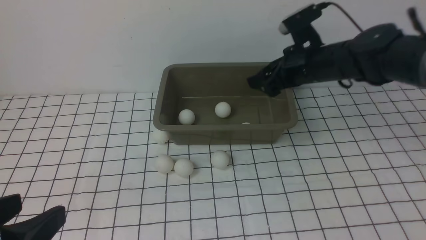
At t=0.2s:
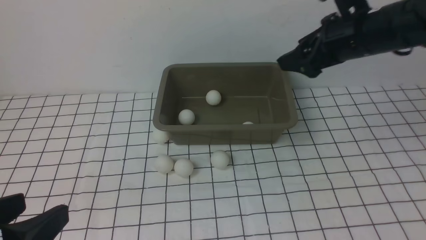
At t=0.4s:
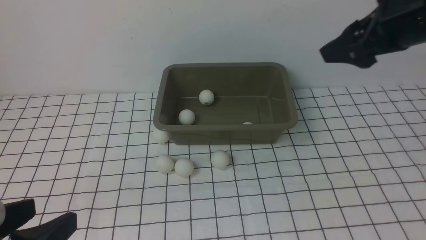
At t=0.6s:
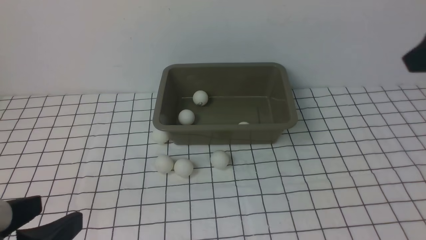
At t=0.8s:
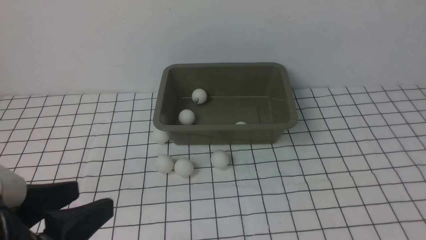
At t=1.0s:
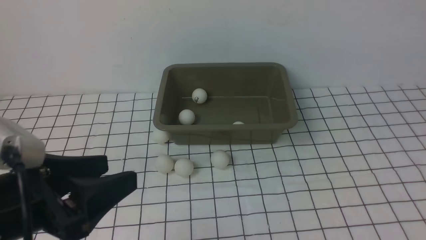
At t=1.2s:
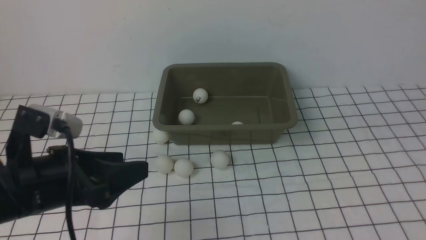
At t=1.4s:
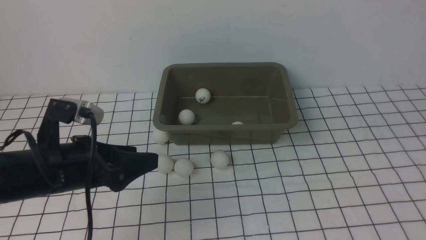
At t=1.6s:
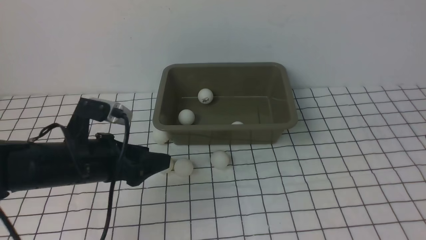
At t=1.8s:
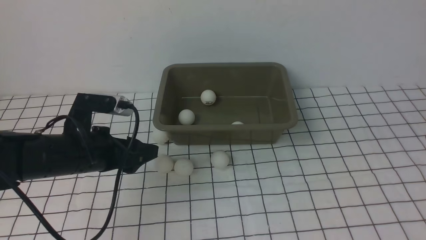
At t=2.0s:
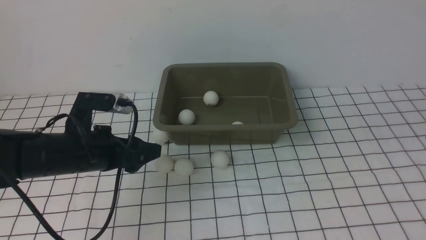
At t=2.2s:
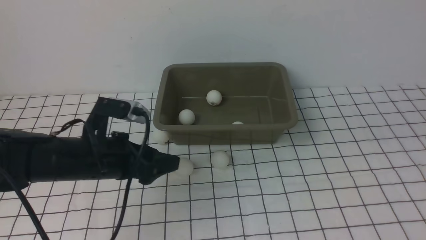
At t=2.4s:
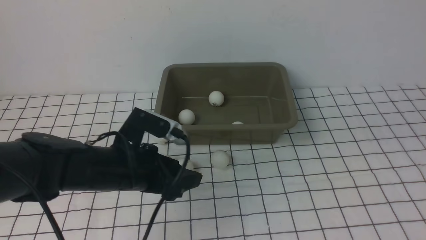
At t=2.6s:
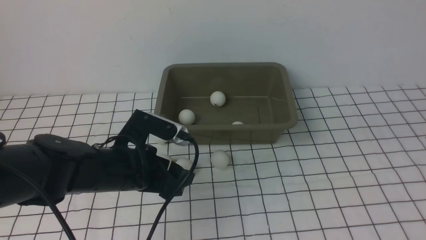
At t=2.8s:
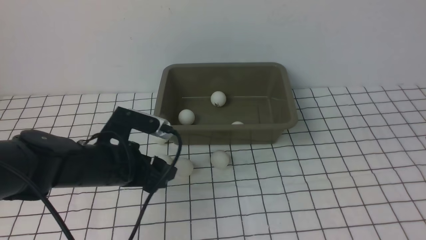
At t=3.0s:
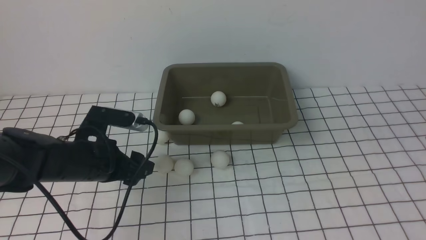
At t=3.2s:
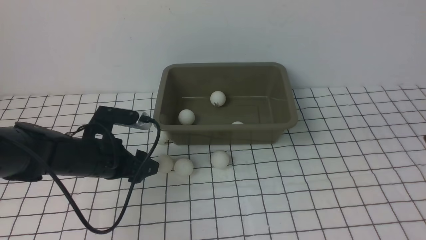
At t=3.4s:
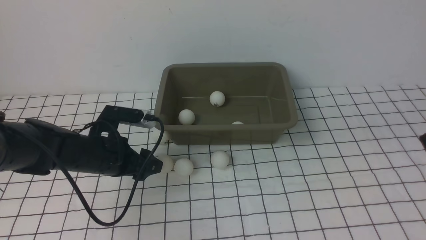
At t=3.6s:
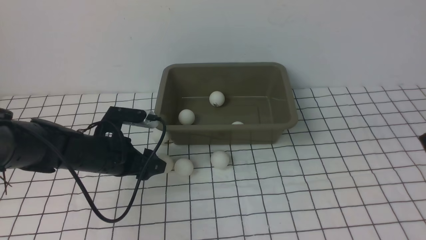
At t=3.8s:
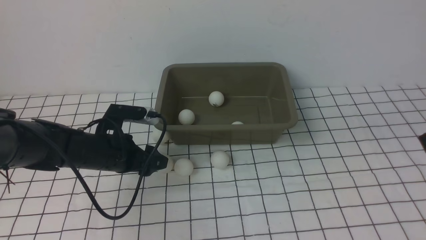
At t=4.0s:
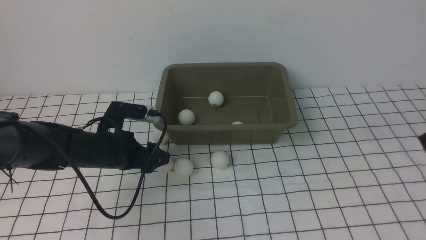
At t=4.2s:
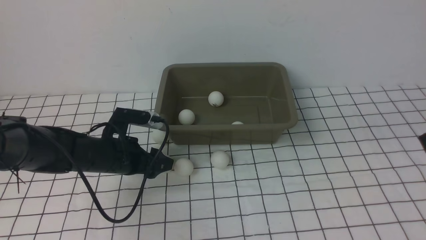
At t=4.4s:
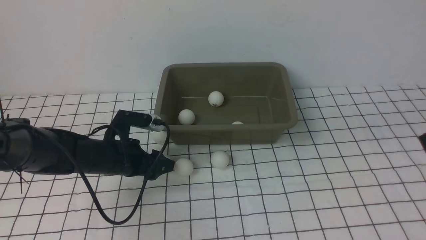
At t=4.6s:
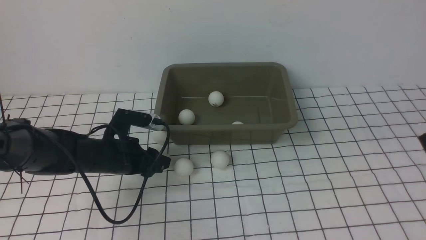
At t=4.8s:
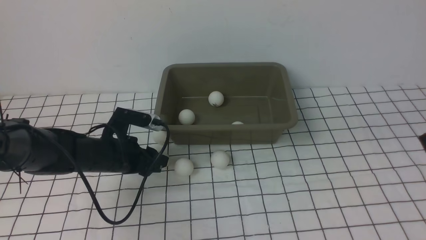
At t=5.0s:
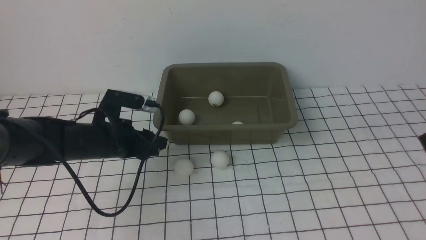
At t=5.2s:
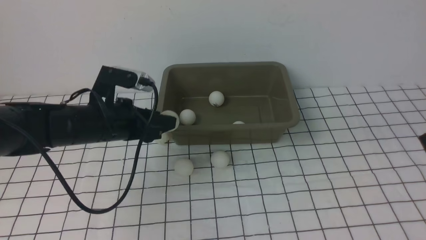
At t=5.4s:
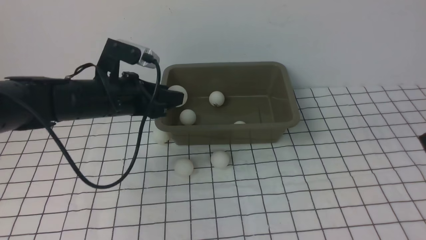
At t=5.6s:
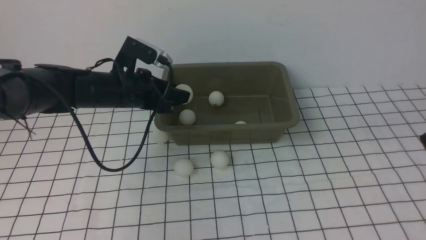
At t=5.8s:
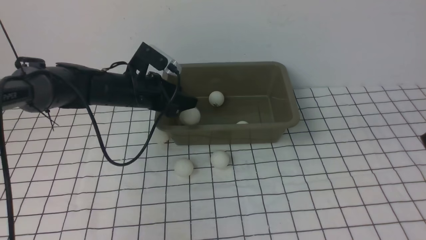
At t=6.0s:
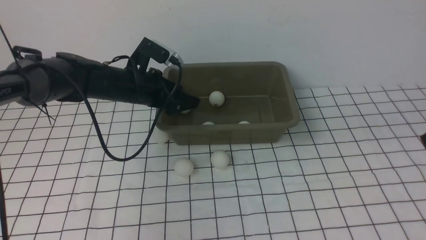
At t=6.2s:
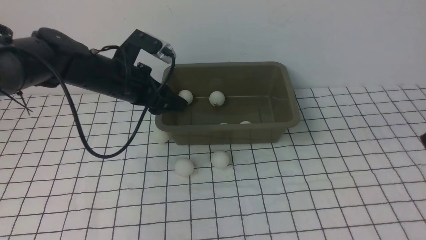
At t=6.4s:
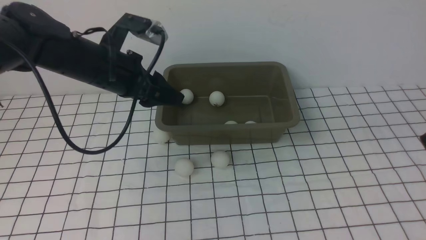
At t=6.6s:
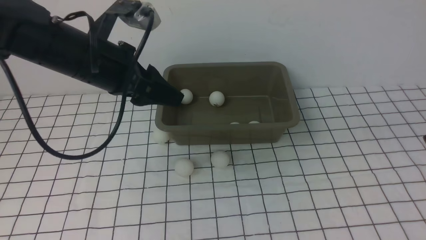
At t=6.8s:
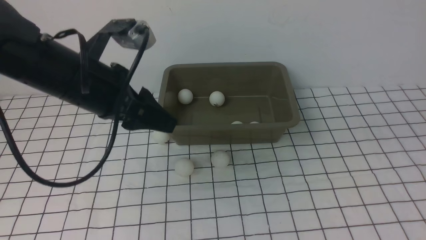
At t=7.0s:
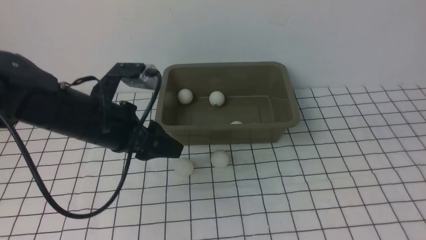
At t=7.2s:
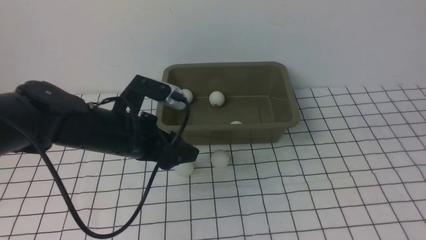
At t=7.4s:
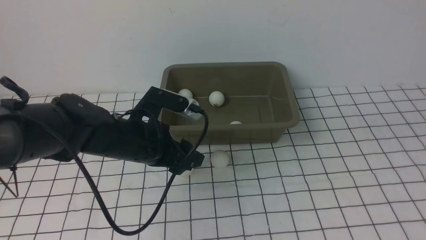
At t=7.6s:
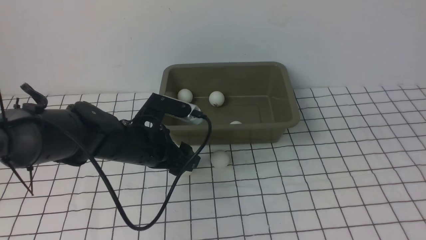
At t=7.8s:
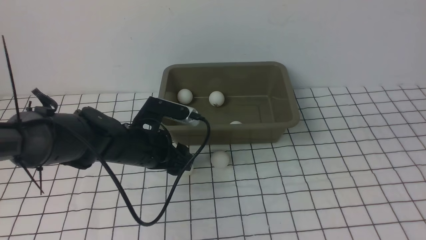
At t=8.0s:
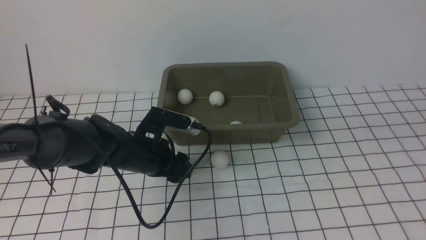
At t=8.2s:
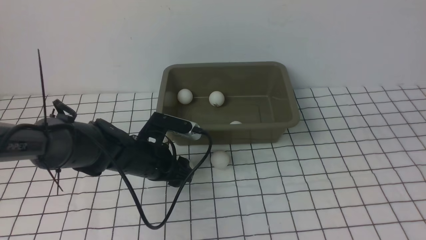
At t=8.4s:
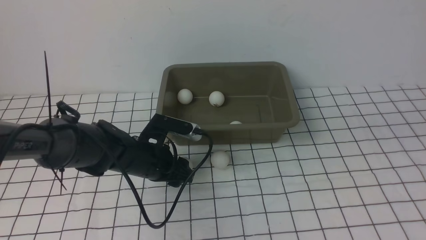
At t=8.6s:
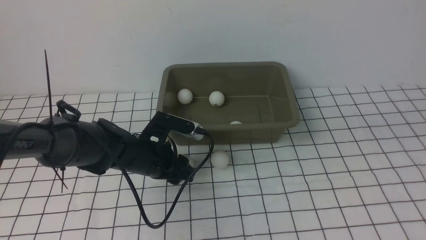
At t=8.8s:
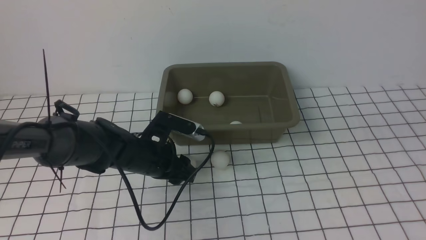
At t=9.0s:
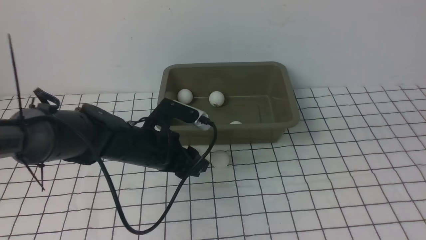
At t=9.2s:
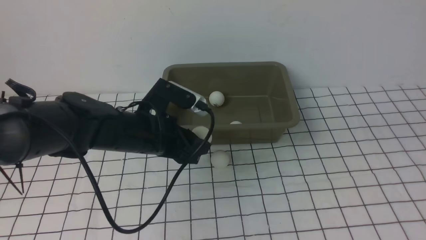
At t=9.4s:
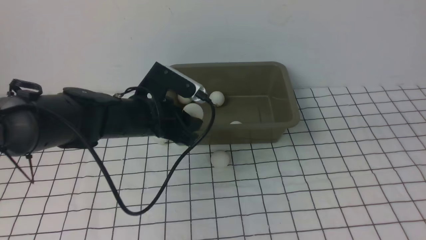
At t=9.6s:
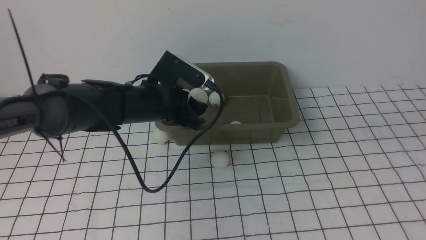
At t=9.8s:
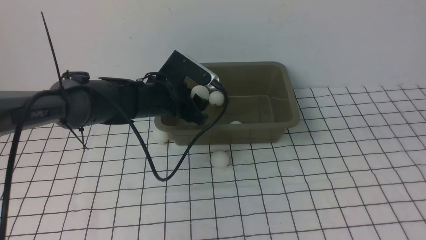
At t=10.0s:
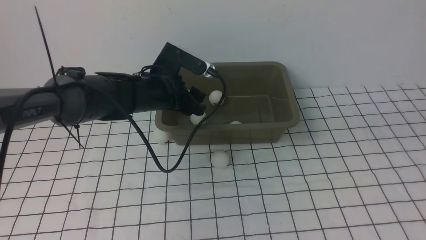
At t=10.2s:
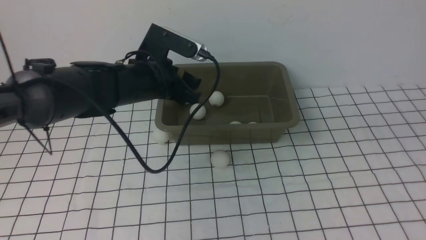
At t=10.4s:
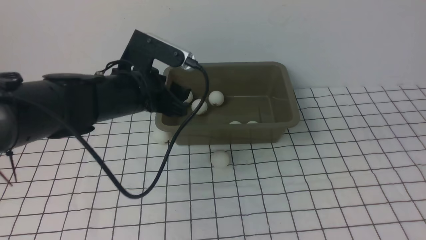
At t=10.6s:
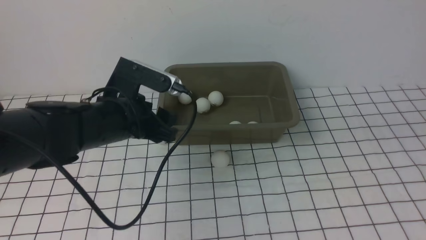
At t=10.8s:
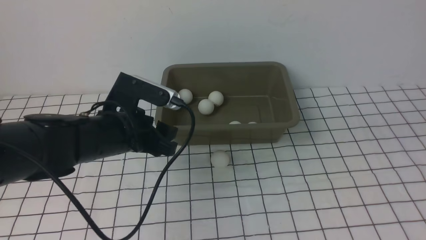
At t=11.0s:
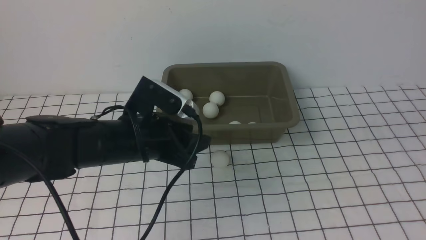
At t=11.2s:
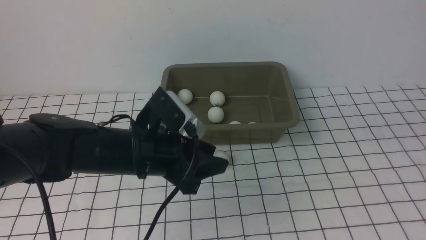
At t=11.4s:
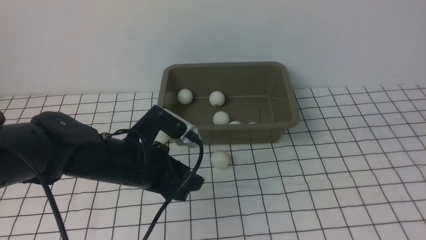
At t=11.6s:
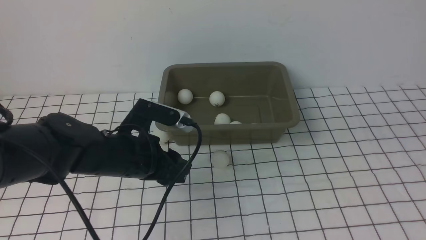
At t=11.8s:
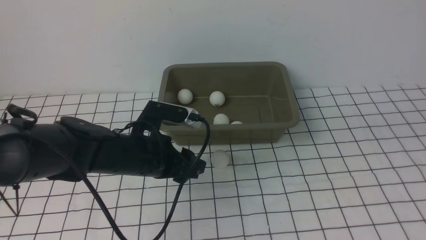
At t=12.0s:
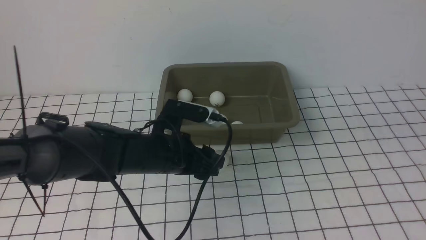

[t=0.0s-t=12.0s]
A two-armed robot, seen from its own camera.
Step, t=0.0s to t=5.0s: use the left arm to clamp the table tennis ball closest to it.
Step, t=5.2s to t=6.0s: use the left arm to put the table tennis ball into the box.
Step, t=6.2s to t=9.0s: use the left arm to clamp the table tennis ball closest to it.
Step, t=9.2s to t=10.0s: use the left arm to put the table tennis ball into the box.
t=0.0s to t=1.6s: The right gripper goes about 25 cm backward and to the right; the left gripper is displaced forward and downward by roughly 25 cm.
t=1.6s to t=3.0s: The grippers stay close to where they were, moving slightly.
t=3.0s to t=4.4s: The grippers make only small movements.
t=4.4s to t=6.0s: The left gripper heads upward, covering some 15 cm.
t=6.0s to t=7.6s: The left gripper is displaced downward and backward by roughly 15 cm.
t=7.6s to t=9.0s: The grippers make only small movements.
t=9.0s to t=10.4s: The left gripper goes about 10 cm upward, and travels forward and back again, approximately 10 cm each way.
t=10.4s to t=12.0s: The left gripper travels downward and to the right by approximately 10 cm.

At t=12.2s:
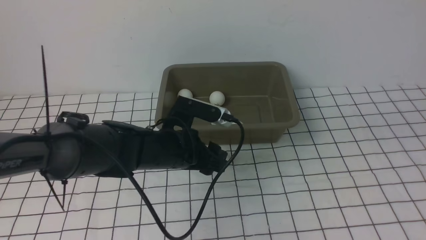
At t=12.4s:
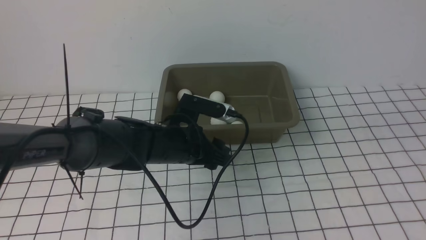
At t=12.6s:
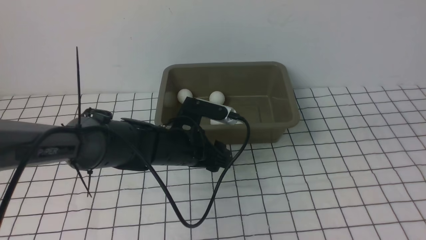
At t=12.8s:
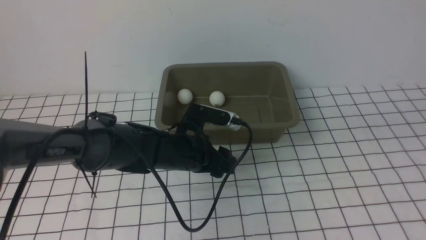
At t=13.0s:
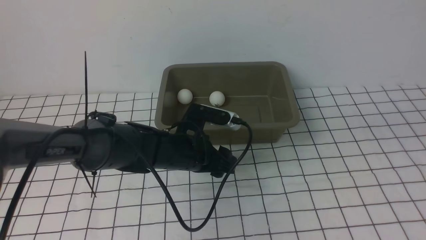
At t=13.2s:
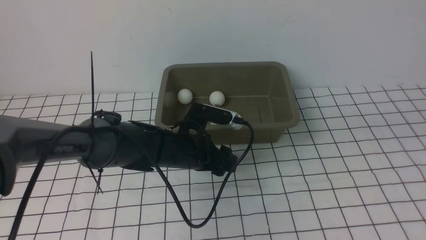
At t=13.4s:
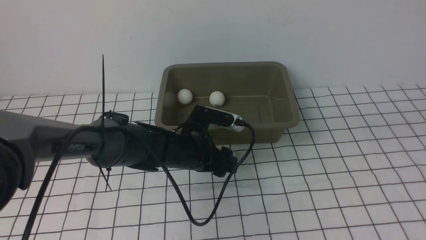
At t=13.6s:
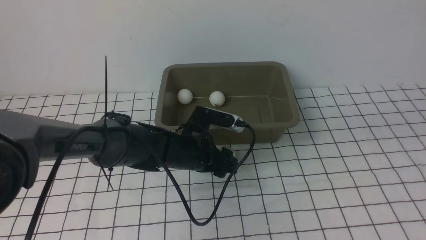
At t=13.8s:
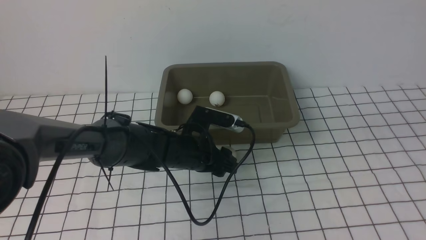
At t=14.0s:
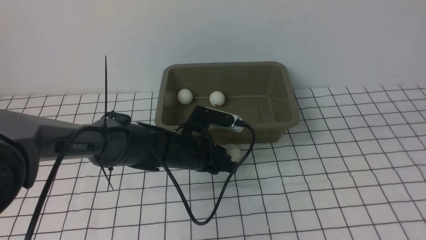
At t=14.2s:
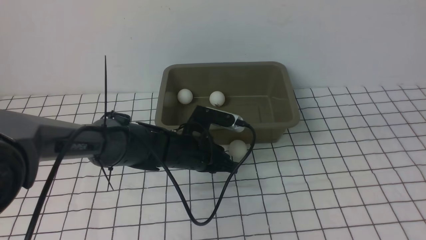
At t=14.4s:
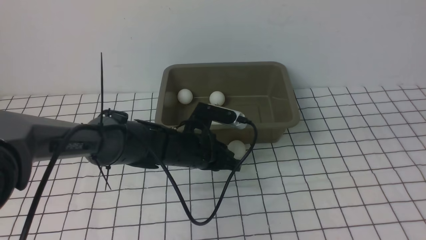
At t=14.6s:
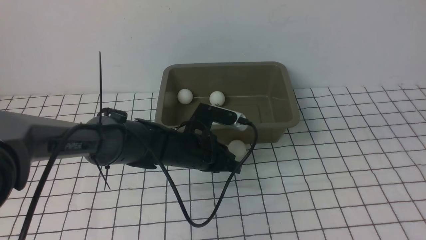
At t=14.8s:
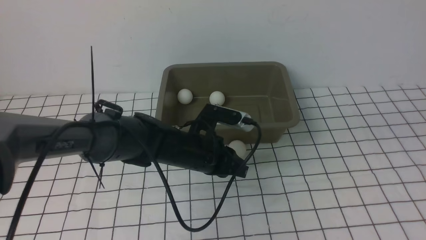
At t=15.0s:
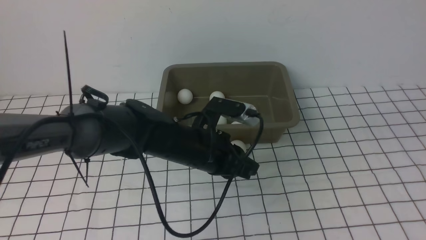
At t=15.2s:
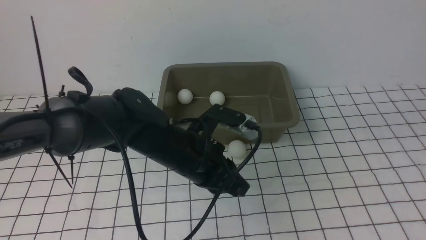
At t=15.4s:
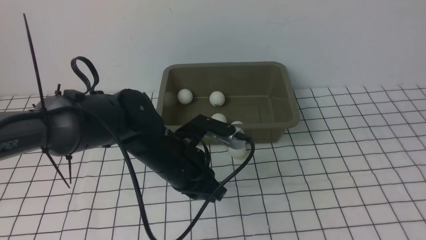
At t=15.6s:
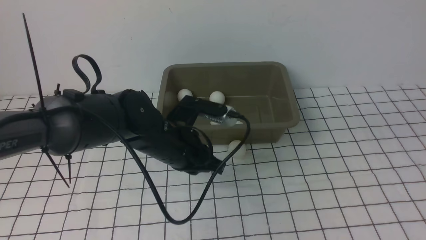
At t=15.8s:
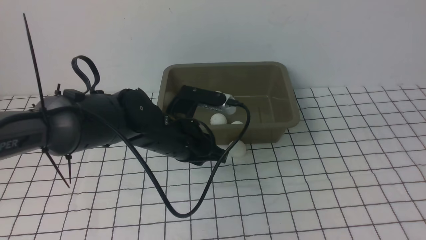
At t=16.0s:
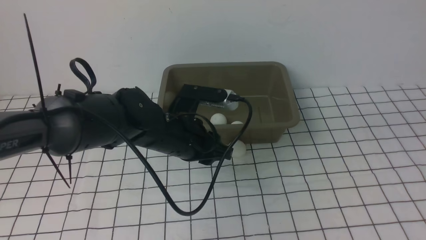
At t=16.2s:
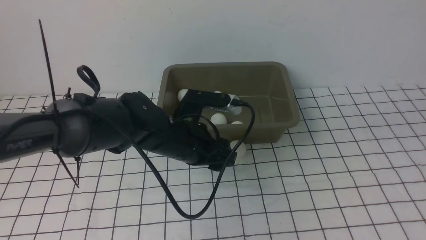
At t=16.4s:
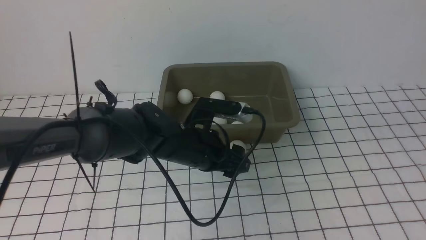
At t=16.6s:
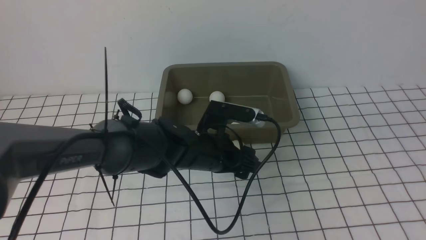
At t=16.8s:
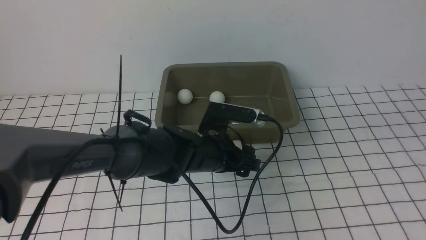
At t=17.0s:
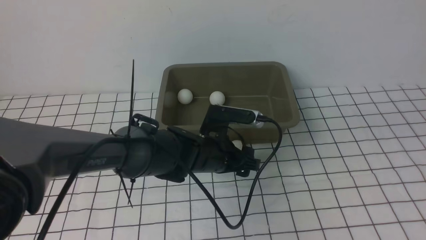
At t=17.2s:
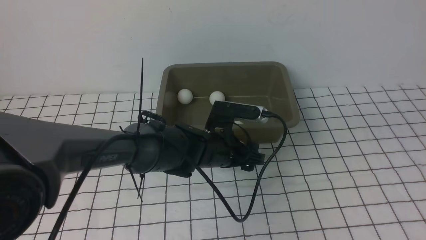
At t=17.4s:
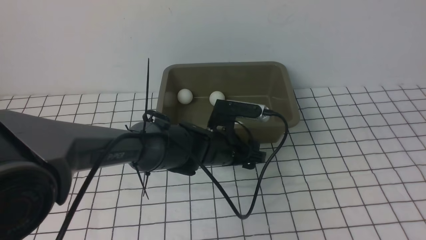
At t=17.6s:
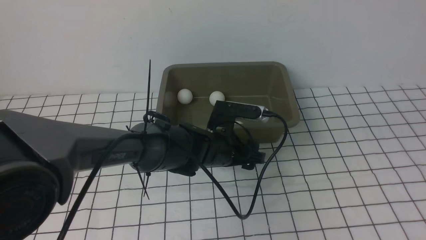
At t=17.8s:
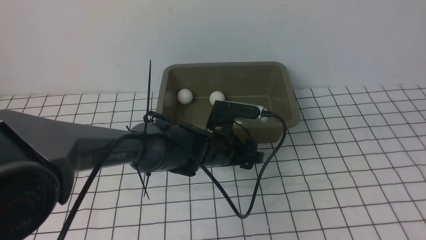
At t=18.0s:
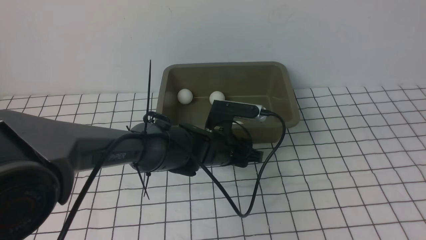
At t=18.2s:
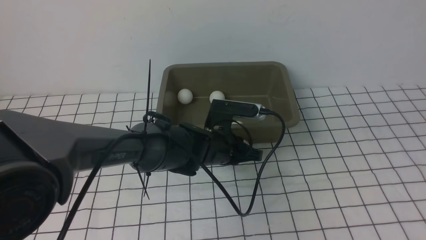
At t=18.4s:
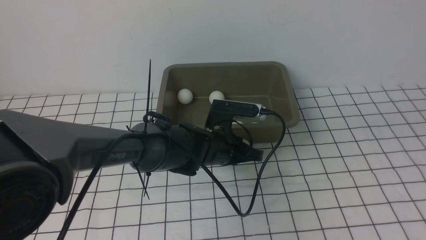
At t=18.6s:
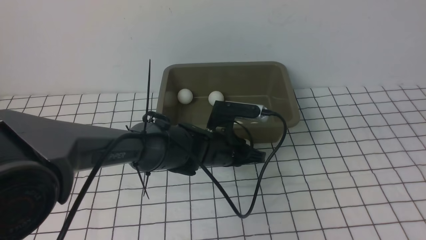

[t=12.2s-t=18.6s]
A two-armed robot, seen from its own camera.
t=12.2s to t=13.8s: The left gripper closes up.
t=13.8s to t=15.4s: The left gripper shifts some 5 cm upward.
t=15.4s to t=17.0s: The left gripper moves to the right and downward, about 10 cm, and opens its fingers.
t=17.0s to t=18.6s: The left gripper closes.
